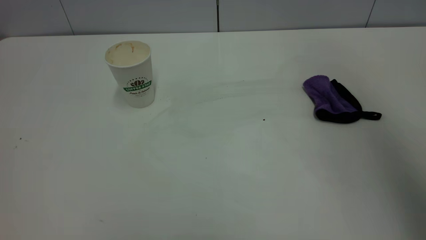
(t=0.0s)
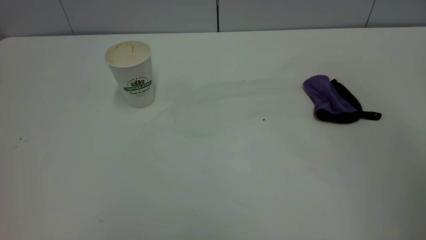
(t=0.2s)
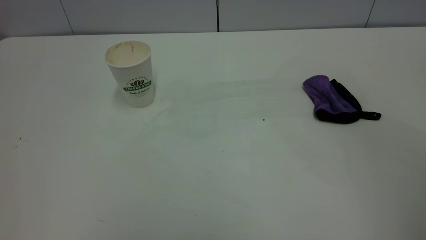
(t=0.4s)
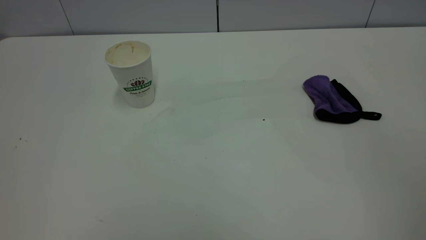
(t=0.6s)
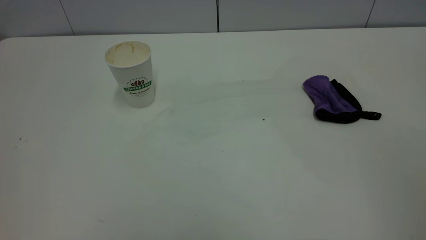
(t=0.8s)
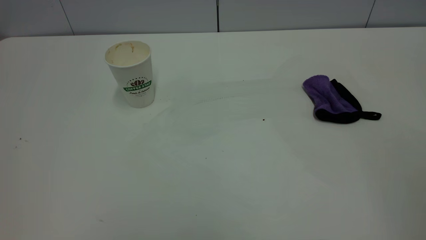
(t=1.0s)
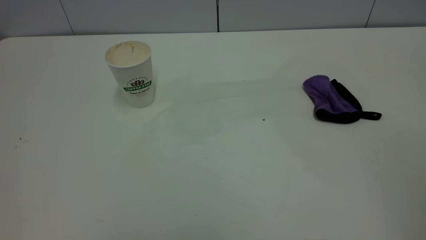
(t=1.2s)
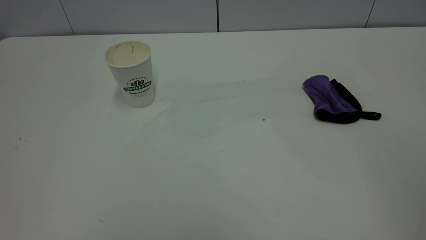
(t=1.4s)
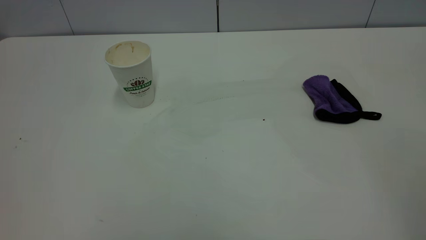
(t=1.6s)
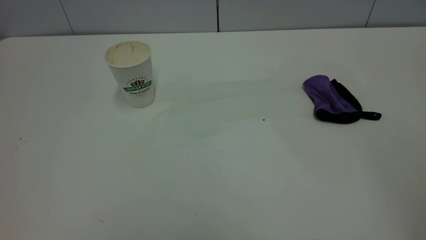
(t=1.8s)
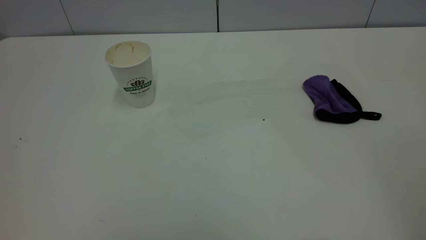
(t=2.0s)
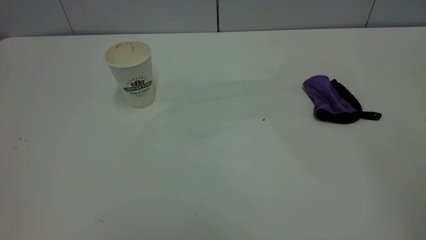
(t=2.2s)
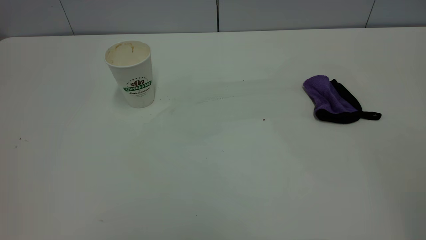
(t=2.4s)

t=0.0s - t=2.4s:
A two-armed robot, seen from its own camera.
Task of the whole recording: the left gripper pick up the fallen cup and place it upright, the right gripper grasp the purple rag and wipe the coffee stain on the table, the right gripper put the purple rag back in its original position.
t=0.0s - t=1.2s: The right gripper heads backward and downward, covering roughly 25 cm.
